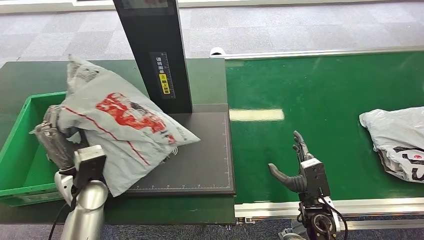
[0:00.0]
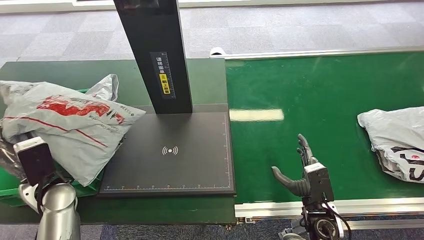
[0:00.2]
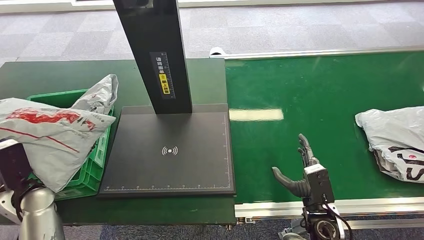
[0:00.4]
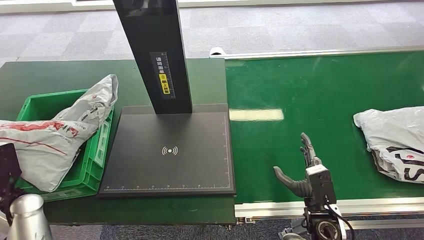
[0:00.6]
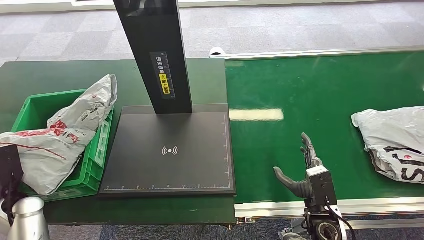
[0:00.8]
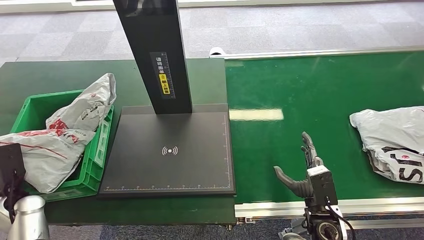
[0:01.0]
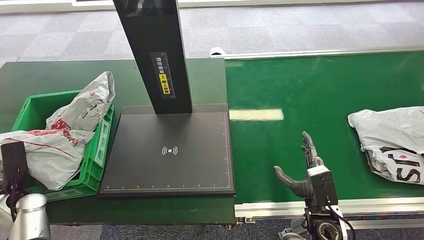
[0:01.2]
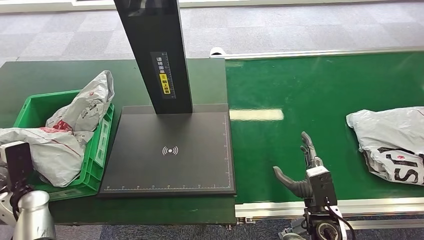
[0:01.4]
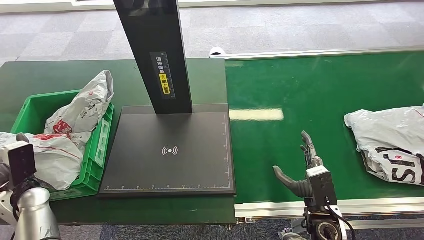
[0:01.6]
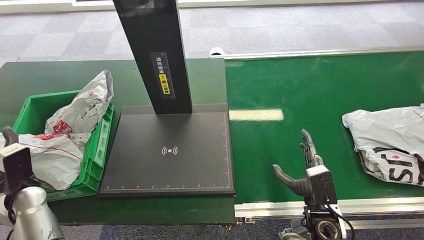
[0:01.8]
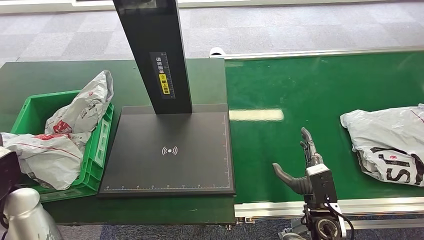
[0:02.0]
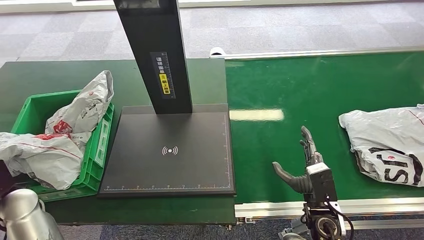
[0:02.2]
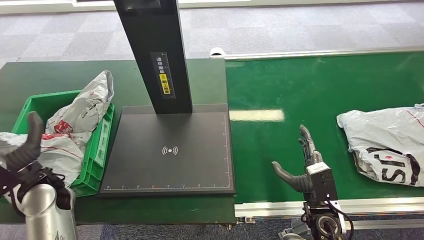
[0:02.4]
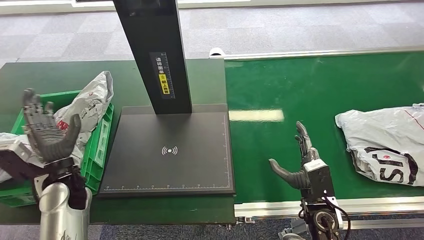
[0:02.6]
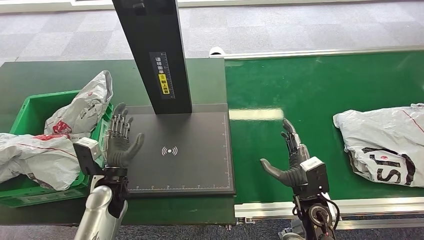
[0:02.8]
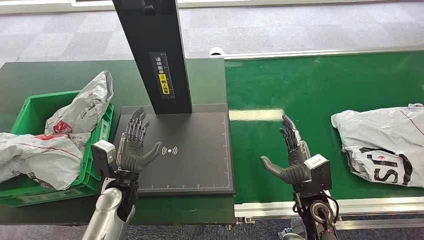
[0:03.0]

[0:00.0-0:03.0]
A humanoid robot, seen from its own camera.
Step, 0:00.8 to 0:03.0: Place the package into the parcel locker.
0:01.6 to 0:03.0: The left hand is displaced to the right by roughly 20 cm.
